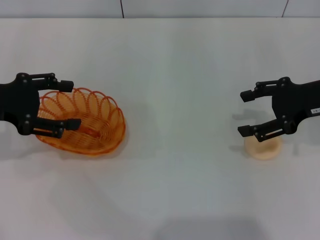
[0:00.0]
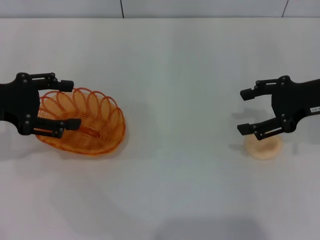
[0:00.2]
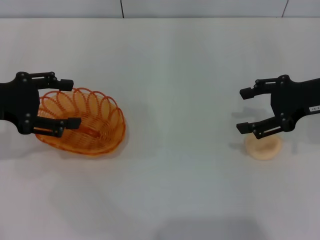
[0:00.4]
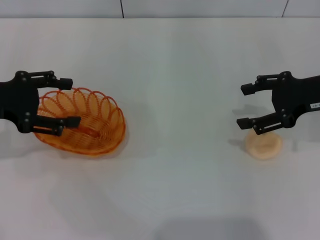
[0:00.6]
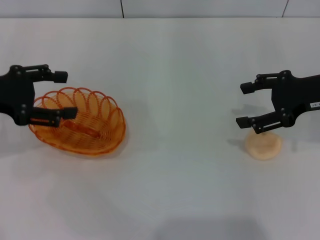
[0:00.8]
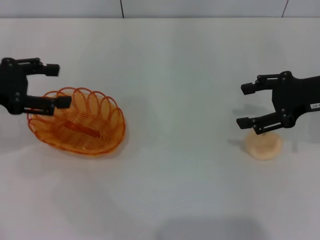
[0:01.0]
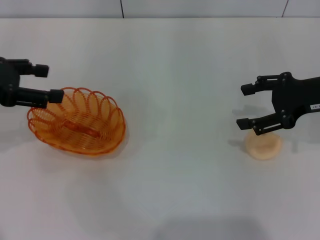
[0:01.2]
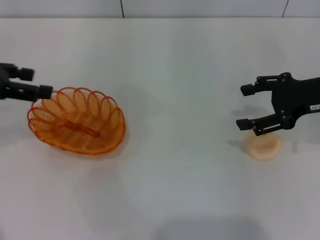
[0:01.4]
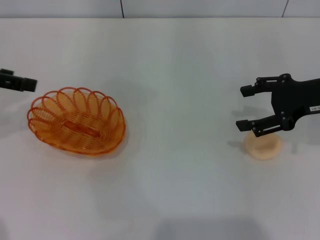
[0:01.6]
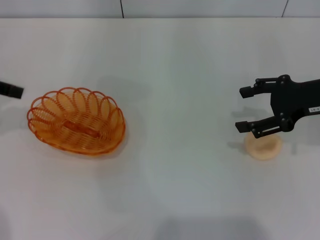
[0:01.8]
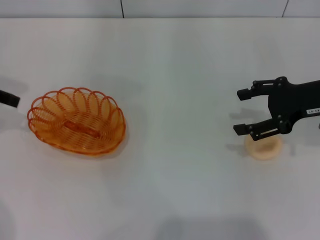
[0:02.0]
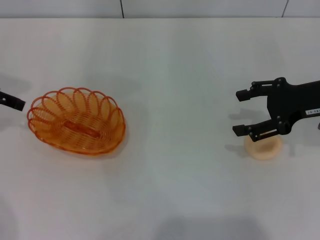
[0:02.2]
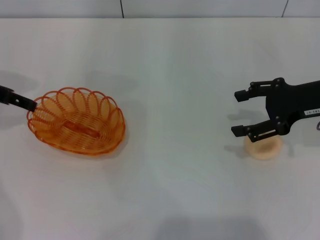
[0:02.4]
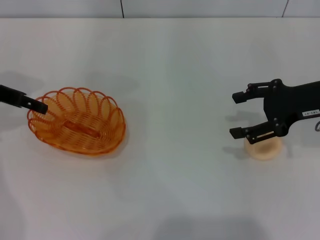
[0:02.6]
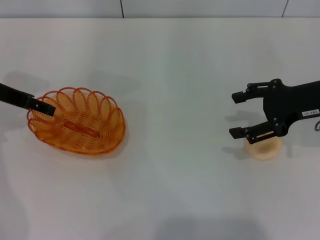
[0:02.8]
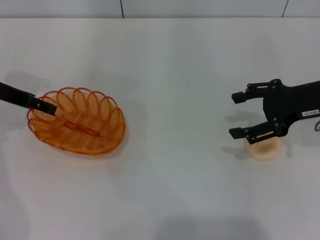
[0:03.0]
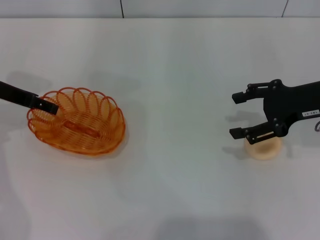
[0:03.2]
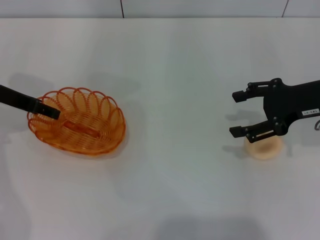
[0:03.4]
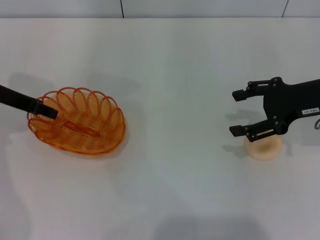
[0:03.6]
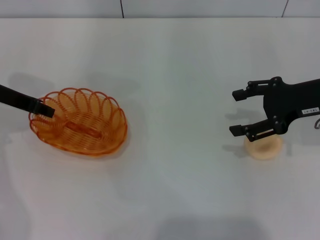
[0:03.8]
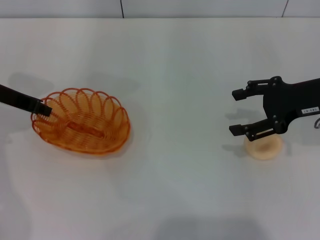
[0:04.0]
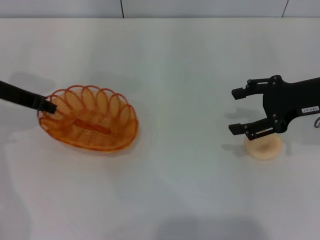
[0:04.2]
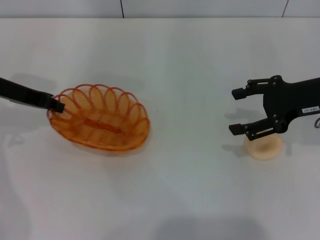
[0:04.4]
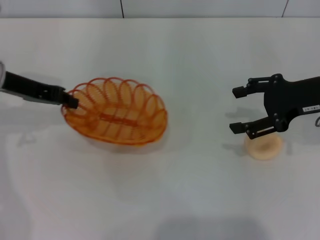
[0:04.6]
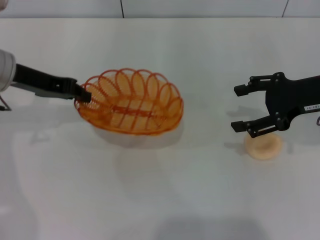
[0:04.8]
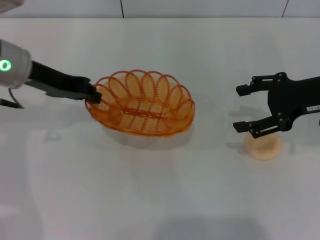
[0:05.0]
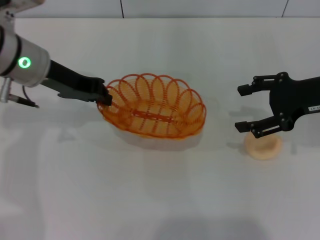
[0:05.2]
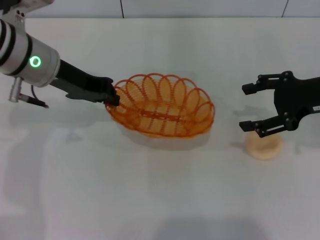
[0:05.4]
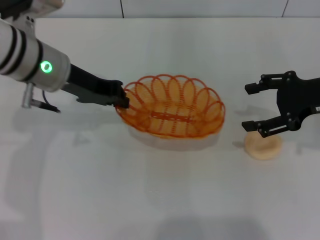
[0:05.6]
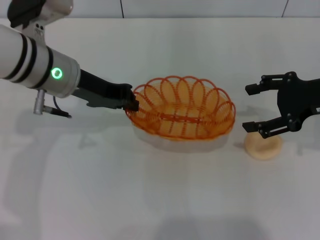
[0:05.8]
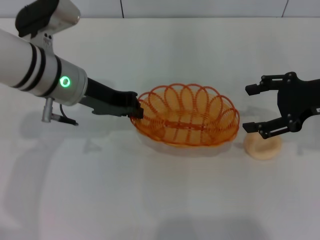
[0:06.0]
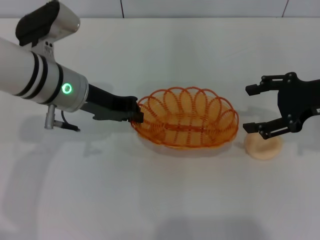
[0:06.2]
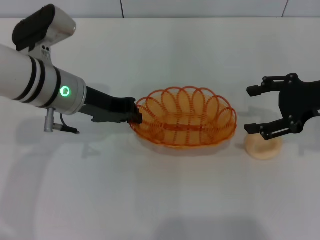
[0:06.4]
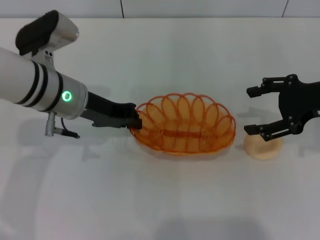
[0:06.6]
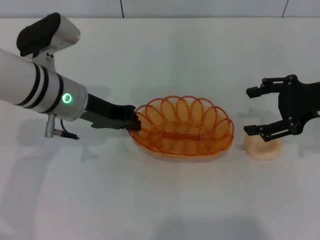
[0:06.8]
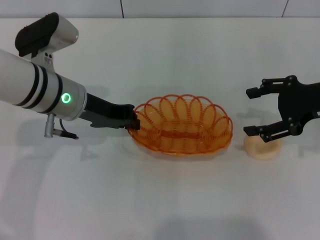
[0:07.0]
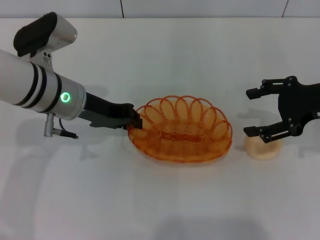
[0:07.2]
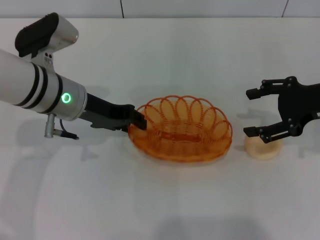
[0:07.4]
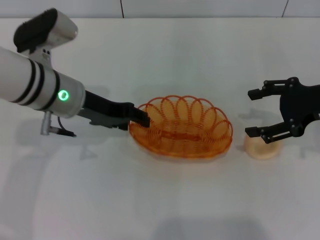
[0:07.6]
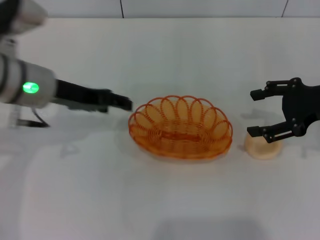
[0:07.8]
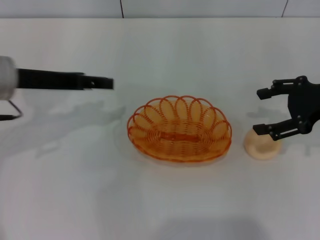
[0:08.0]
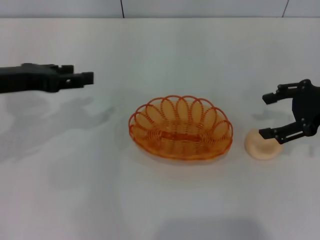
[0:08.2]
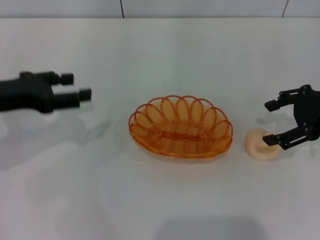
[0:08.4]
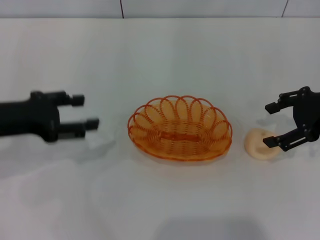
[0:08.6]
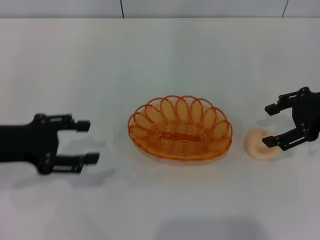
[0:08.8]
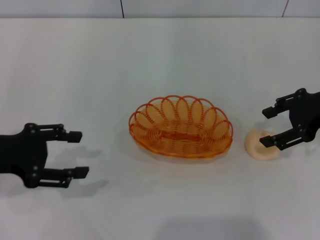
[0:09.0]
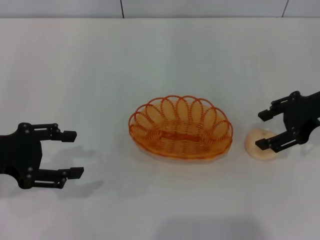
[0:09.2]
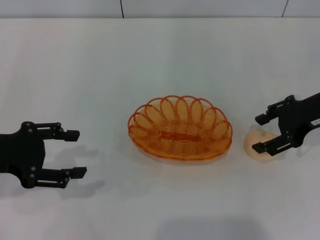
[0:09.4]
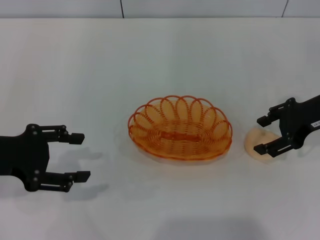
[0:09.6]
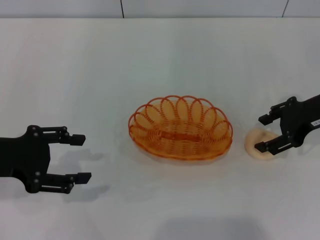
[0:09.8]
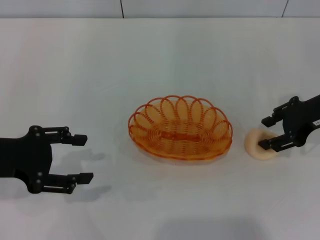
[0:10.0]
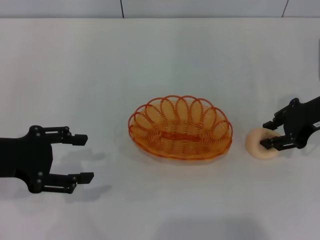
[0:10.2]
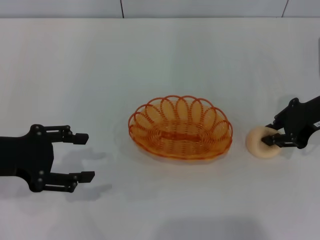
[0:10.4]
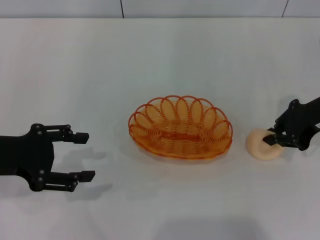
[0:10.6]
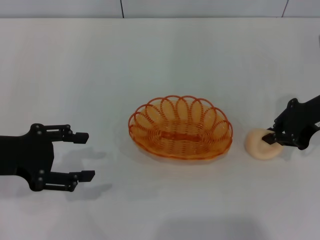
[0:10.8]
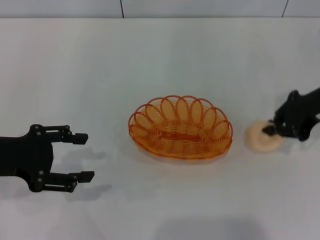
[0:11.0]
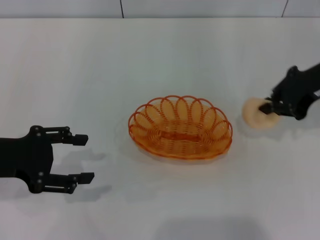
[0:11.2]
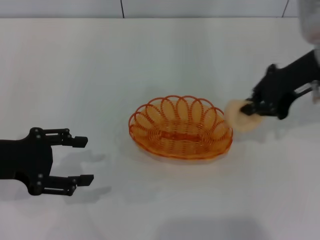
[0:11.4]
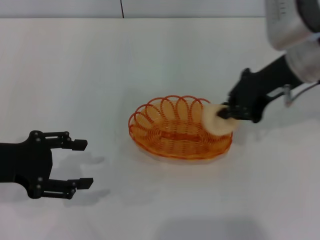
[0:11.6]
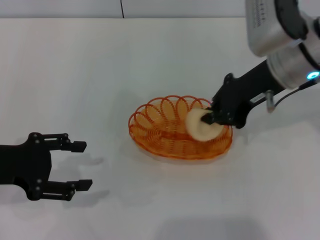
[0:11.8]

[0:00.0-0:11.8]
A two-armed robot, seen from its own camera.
Step, 0:00.0 to 0:04.8: Pick up the basket with the left gripper.
Step, 0:05.0 to 0:08.0: Place the basket in the center of view with the left gripper.
Step, 0:08.2 to 0:11.2: Pick up the egg yolk pastry with the right gripper.
0:00.0 to 0:01.4: The left gripper travels upward by some 5 cm.
0:01.4 to 0:03.0: The left gripper goes roughly 10 cm downward and forward.
0:03.0 to 0:04.4: The left gripper closes up.
0:04.4 to 0:06.0: The left gripper travels to the right by about 10 cm.
0:06.0 to 0:07.4: The grippers stay close to where they were, moving slightly.
0:07.4 to 0:08.8: The left gripper is displaced to the left and backward by approximately 15 cm, and opens up.
0:08.8 to 0:10.4: The right gripper closes up.
0:10.4 to 0:11.8: The right gripper shifts some 10 cm to the left and upward, and closes.

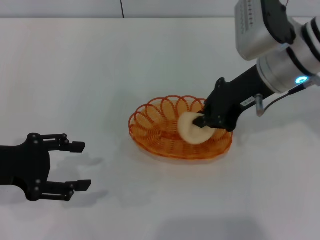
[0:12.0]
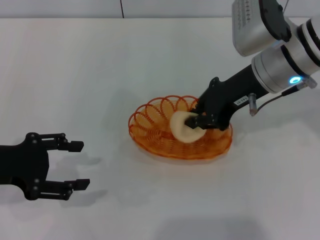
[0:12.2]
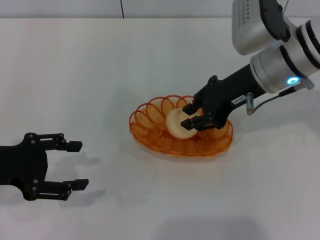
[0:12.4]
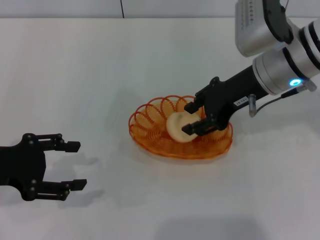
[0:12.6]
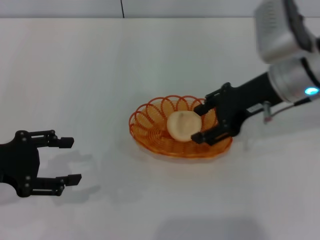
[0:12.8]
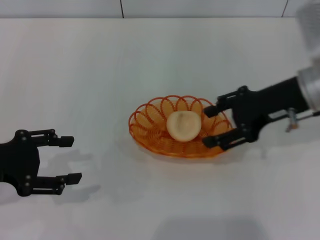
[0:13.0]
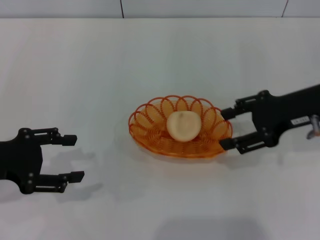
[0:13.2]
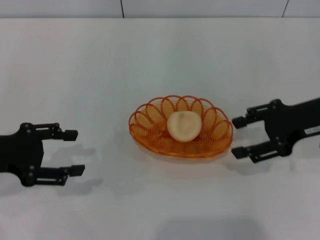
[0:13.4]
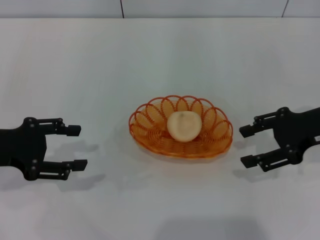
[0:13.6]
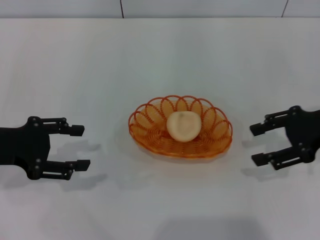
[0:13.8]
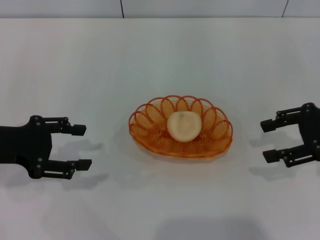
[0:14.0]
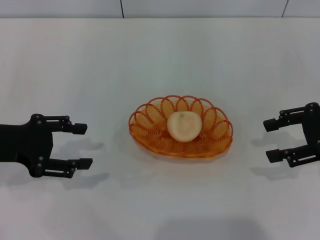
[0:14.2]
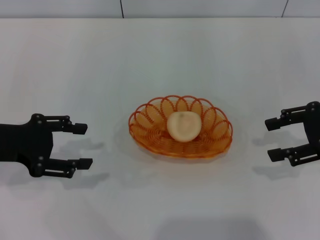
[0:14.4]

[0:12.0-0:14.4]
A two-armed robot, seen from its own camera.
Step, 0:12.0 to 0:12.8: Place the egg yolk pastry into the basket with the right gripper.
0:12.0 to 0:13.2: The right gripper is displaced to the right by some 10 cm, and opens its fingers.
0:13.2 to 0:14.4: The right gripper travels to the right by approximately 5 cm.

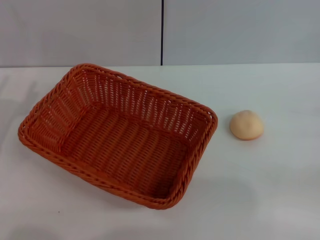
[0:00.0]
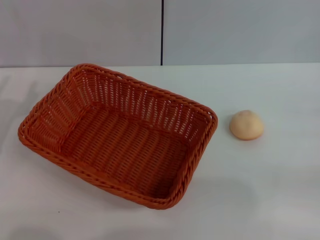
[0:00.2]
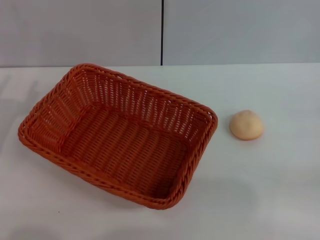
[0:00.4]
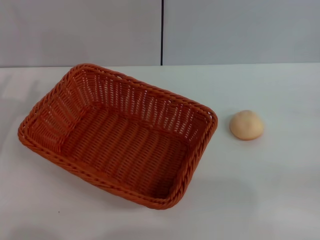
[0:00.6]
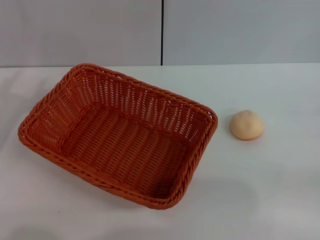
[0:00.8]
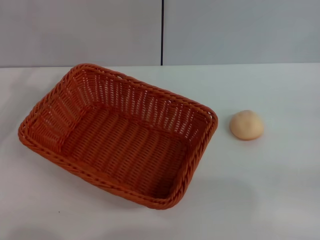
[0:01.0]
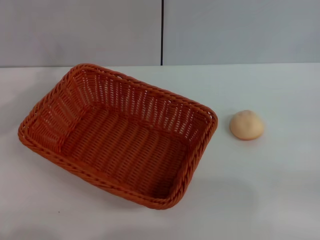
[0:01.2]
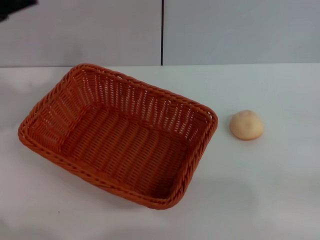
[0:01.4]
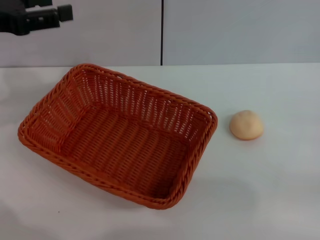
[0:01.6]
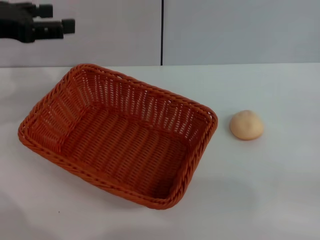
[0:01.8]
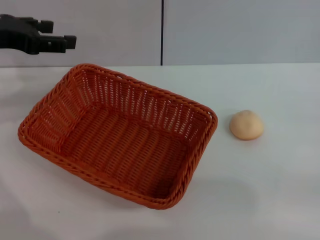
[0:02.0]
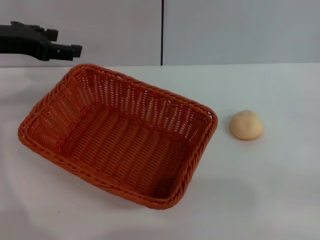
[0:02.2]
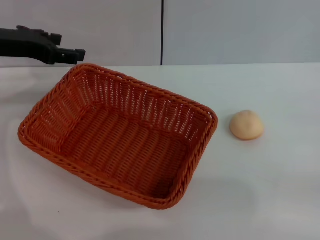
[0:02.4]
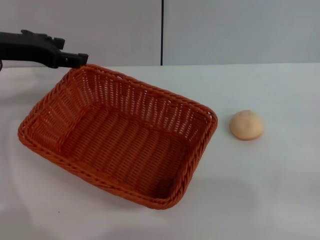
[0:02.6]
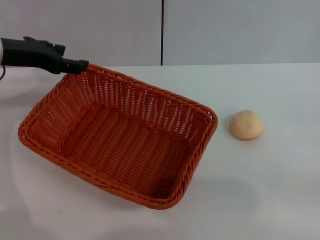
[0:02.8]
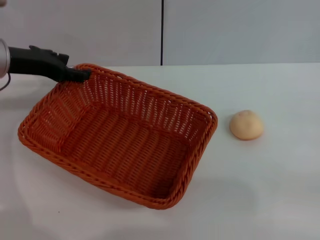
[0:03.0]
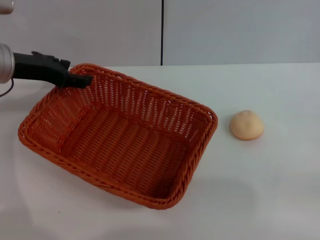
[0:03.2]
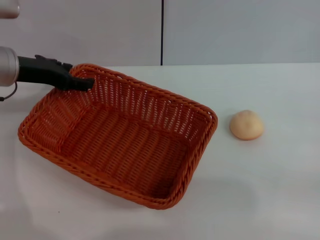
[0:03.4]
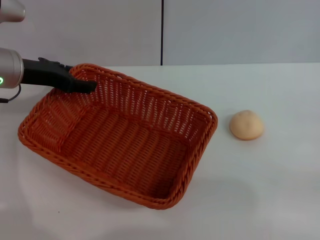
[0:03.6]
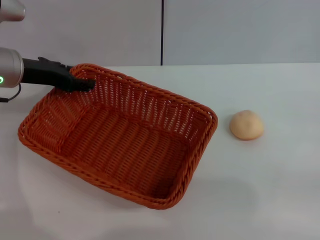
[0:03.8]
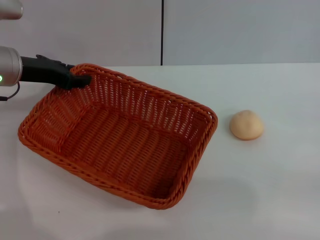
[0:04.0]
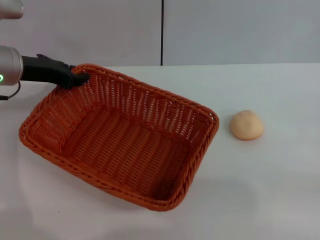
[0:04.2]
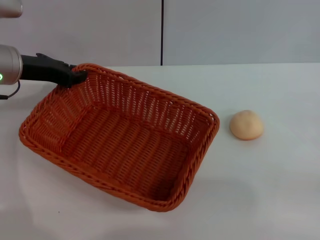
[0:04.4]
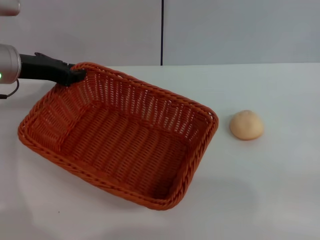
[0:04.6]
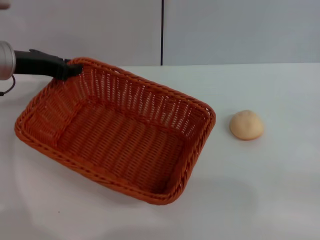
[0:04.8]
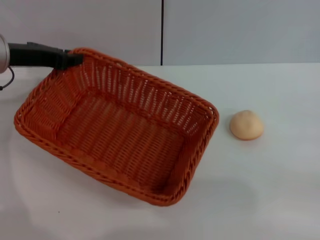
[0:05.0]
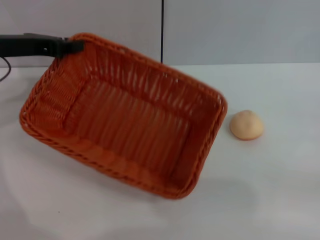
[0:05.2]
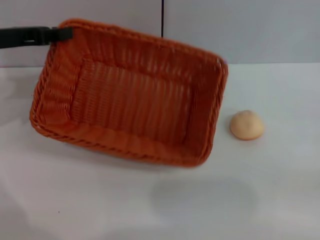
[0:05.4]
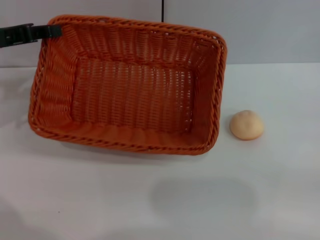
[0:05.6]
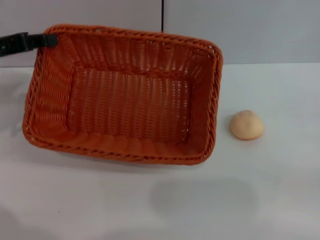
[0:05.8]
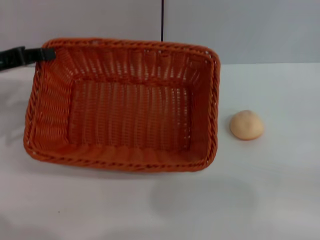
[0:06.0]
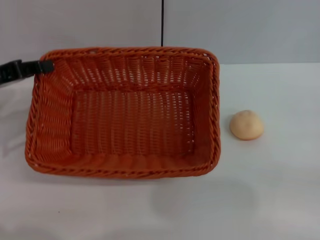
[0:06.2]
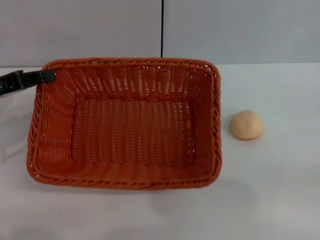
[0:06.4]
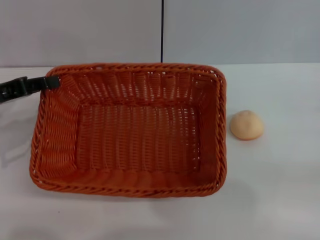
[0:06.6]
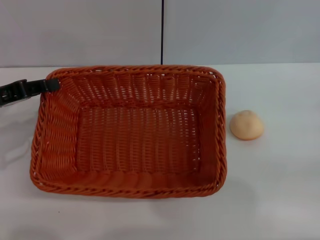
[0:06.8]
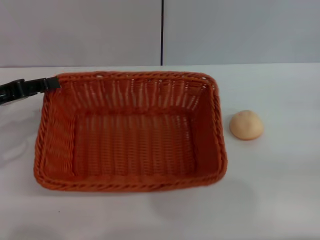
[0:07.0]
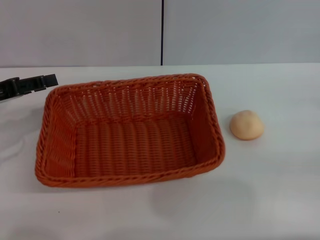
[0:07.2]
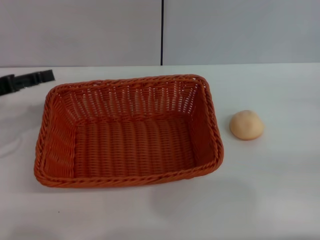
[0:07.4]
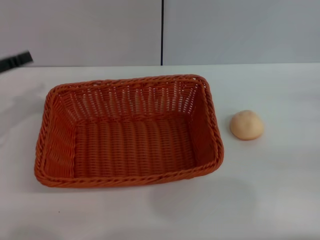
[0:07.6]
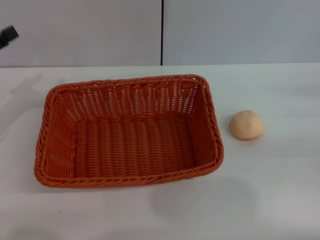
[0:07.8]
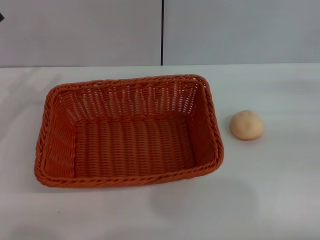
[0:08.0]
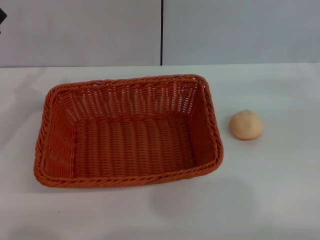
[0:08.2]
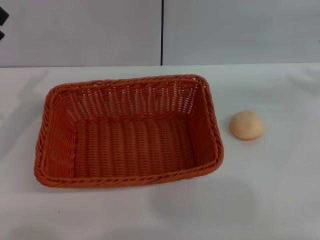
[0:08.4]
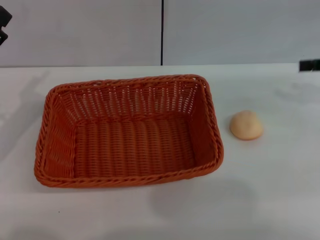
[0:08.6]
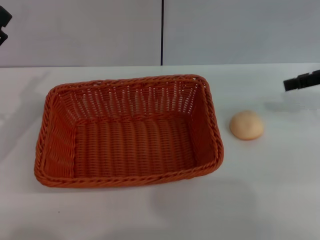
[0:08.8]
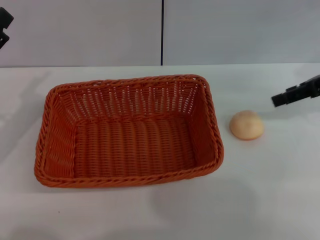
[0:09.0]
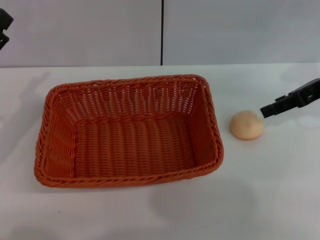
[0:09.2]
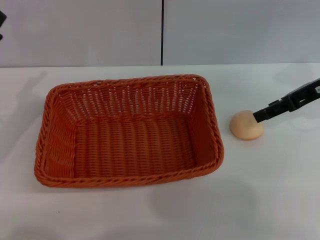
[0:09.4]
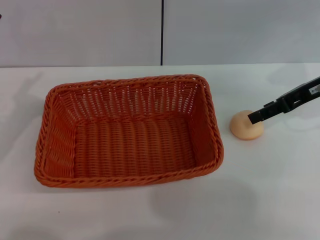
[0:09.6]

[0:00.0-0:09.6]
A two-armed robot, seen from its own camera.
Step, 0:00.0 to 0:07.4: Move the basket to the center of view with the left gripper.
0:00.0 to 0:01.6: The left gripper shifts approximately 15 cm upward and forward.
0:01.6 to 0:03.2: The left gripper heads downward, covering some 5 cm.
0:03.2 to 0:04.8: The left gripper closes.
0:04.8 to 0:06.4: The left gripper heads backward and to the left, covering approximately 10 cm.
0:06.4 to 0:08.0: The left gripper opens; the right gripper travels upward by about 5 cm.
0:08.0 to 0:09.6: The right gripper goes approximately 15 cm to the left and forward.
